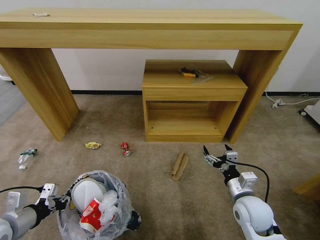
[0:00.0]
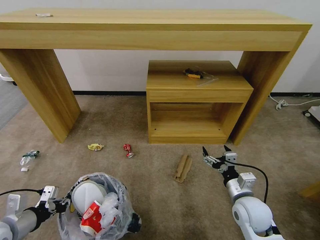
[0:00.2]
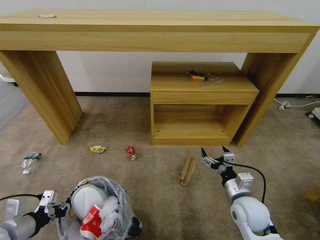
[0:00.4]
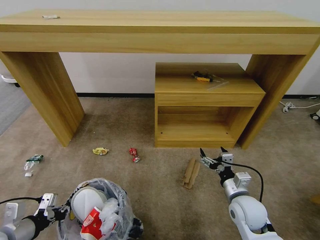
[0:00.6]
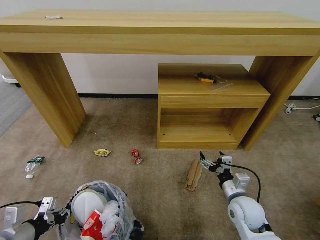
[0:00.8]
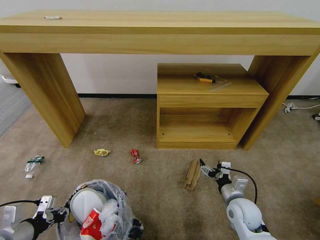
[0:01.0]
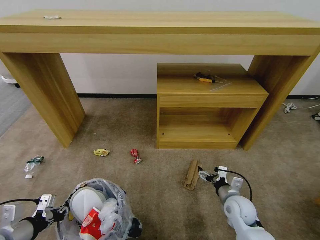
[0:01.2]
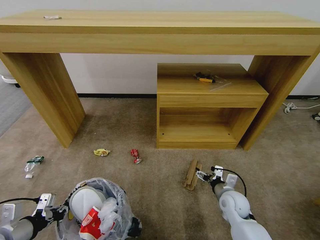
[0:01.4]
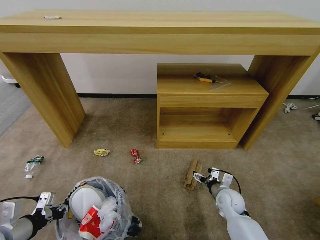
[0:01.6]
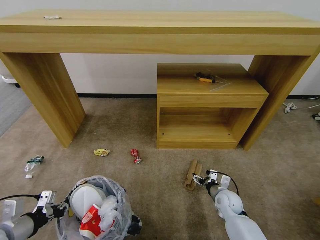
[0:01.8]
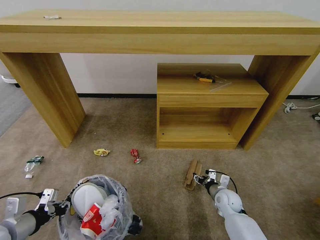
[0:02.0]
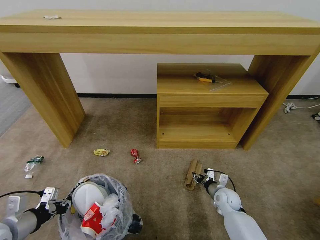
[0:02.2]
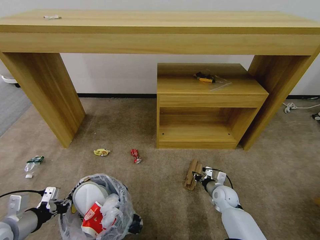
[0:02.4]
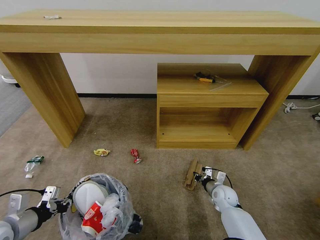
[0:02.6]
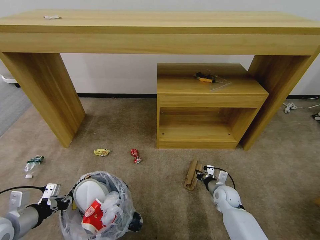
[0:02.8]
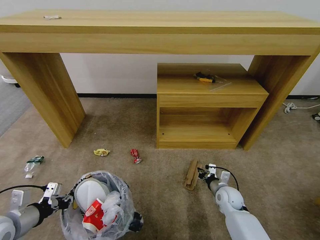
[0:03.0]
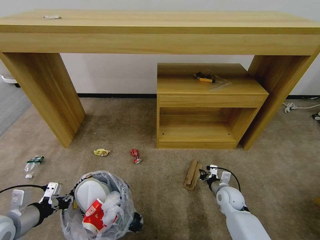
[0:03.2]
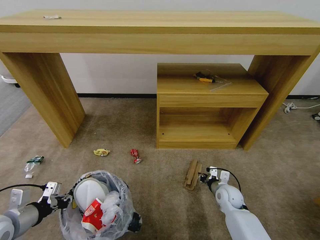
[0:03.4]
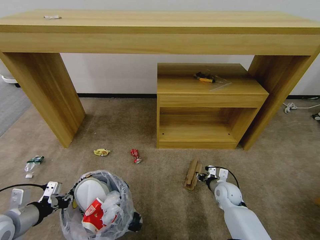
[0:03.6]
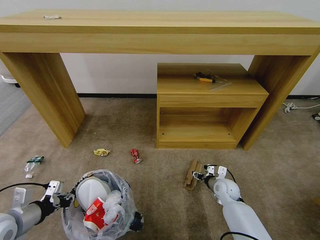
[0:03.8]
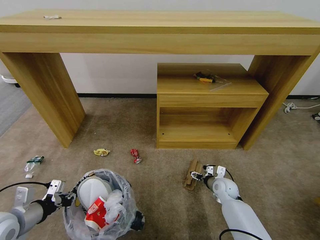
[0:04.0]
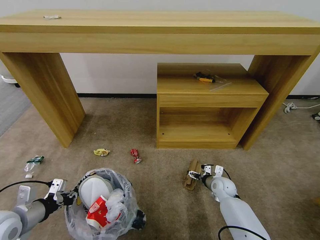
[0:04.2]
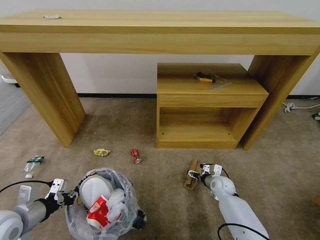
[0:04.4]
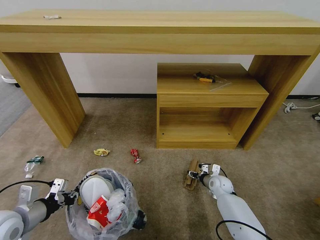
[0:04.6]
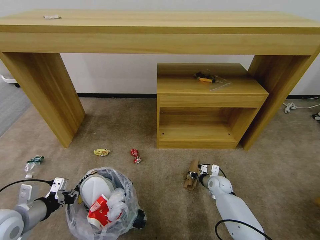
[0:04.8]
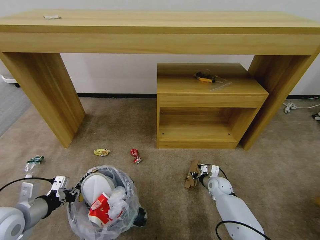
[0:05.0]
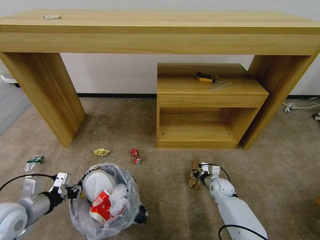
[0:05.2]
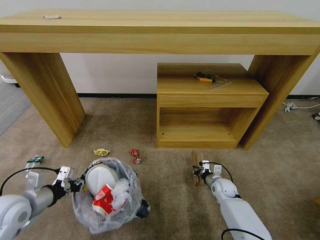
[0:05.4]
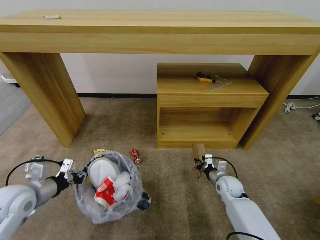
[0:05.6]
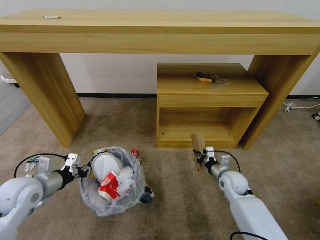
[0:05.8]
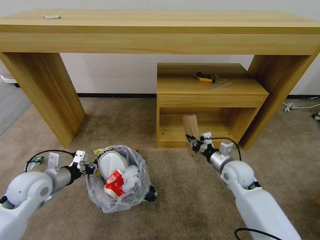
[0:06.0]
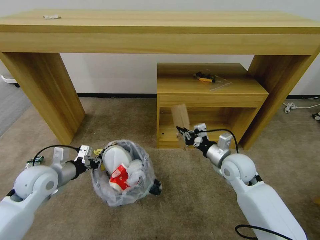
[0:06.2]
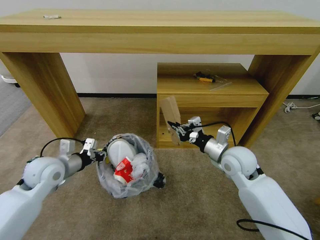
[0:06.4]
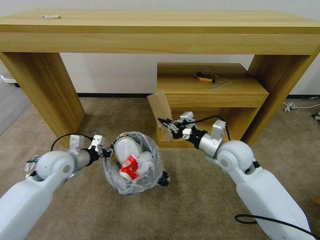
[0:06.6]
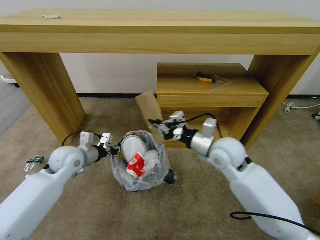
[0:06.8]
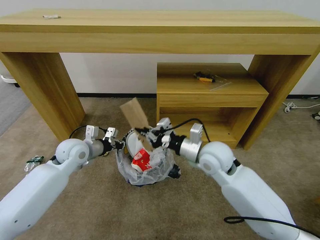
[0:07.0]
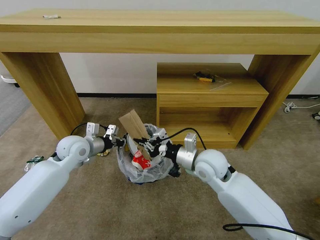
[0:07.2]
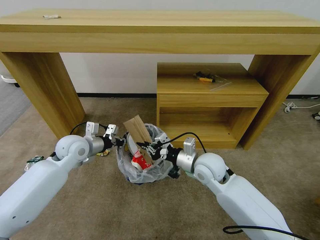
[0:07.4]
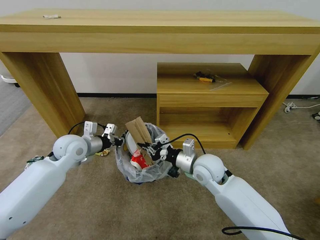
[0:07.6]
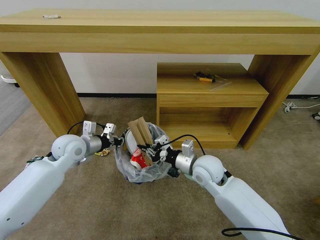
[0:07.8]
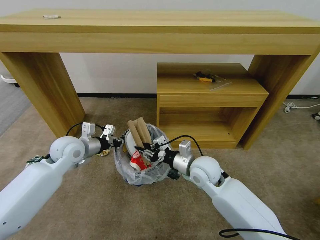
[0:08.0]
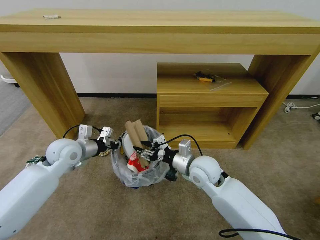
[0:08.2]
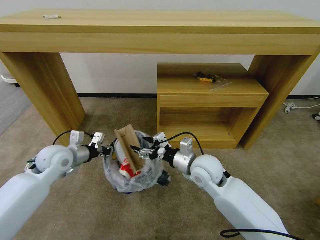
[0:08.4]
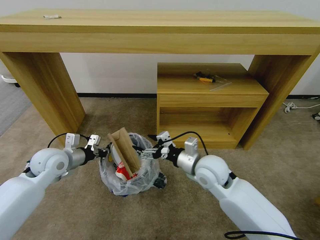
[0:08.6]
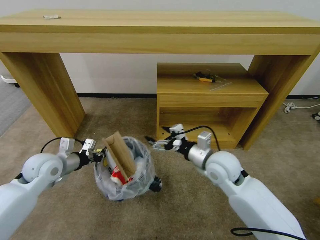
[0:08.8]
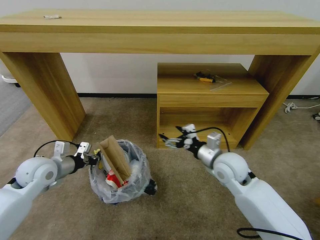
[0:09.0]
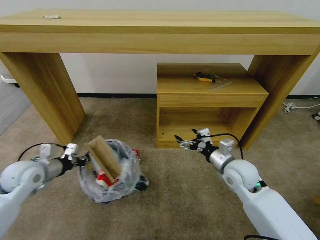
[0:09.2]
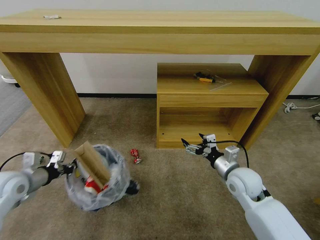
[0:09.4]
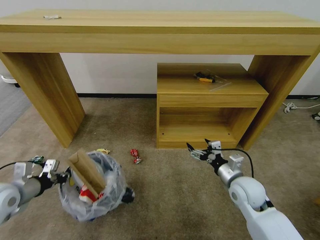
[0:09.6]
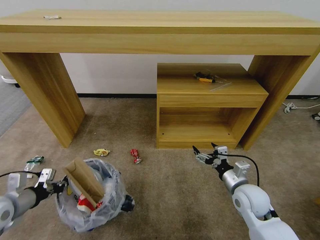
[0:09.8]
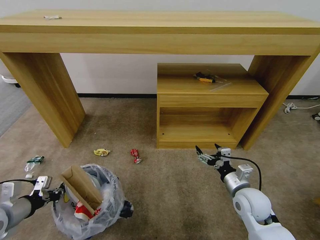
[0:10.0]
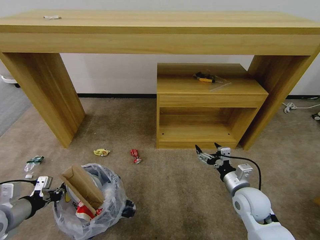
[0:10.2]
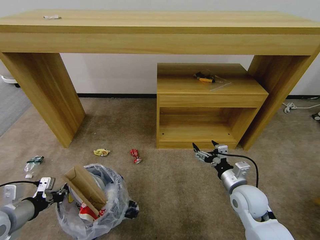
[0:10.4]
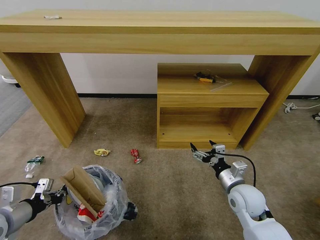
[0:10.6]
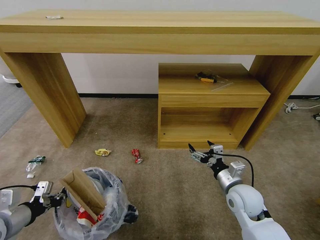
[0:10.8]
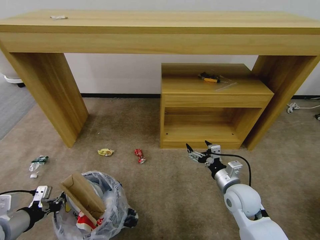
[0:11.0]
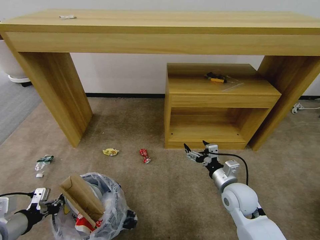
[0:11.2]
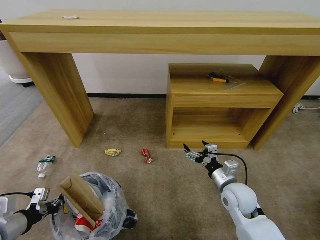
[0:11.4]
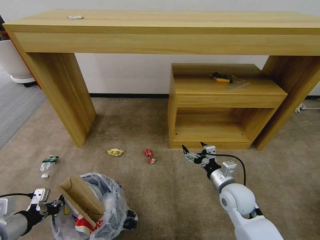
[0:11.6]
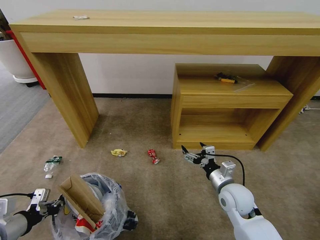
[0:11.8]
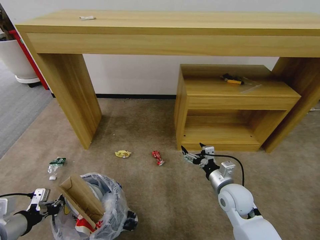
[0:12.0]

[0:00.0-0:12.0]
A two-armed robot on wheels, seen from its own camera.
Task of the whole recording: Pick up the trash bin and place the garbage on the floor into it.
0.0 to 1.6 s: The right gripper shifts approximately 15 cm downward and forward.
1.6 to 3.0 s: The right gripper closes up.
3.0 to 4.4 s: The right gripper is displaced forward by about 5 cm, and opens.
4.4 to 6.0 s: The left gripper goes roughly 10 cm forward; the right gripper is displaced upward by about 15 cm, and closes its fingers.
6.0 to 7.6 s: The left gripper goes about 15 cm forward and to the right. The right gripper heads to the left and upward, covering roughly 15 cm.
7.6 to 9.0 s: The right gripper shifts some 5 cm to the right, and opens. Meanwhile the left gripper shifts roughly 10 cm to the left and backward.
9.0 to 10.4 s: The right gripper shifts about 10 cm downward and backward; the left gripper moves backward, some 15 cm.

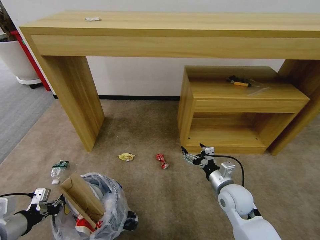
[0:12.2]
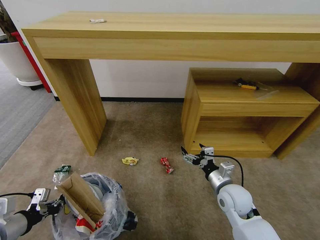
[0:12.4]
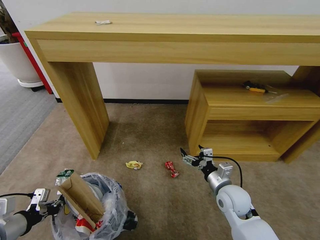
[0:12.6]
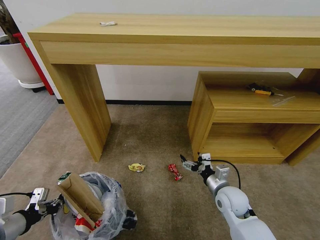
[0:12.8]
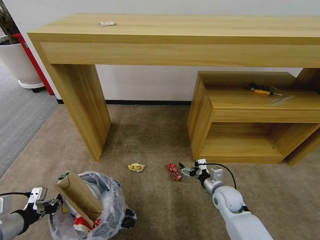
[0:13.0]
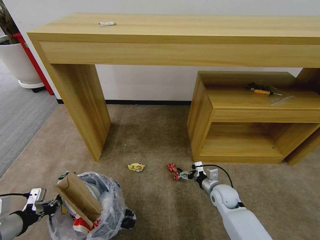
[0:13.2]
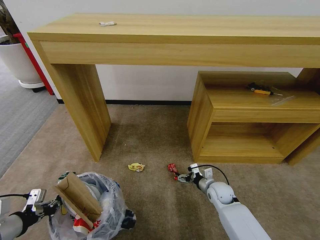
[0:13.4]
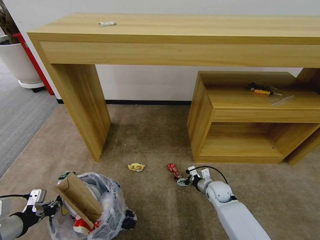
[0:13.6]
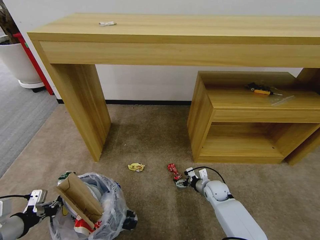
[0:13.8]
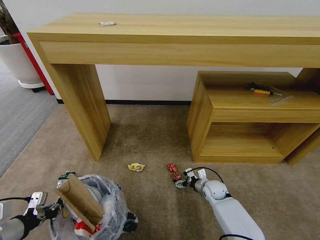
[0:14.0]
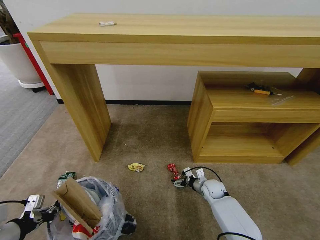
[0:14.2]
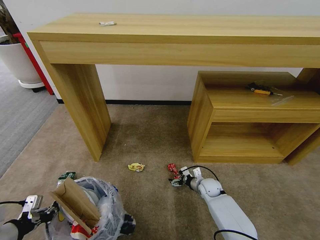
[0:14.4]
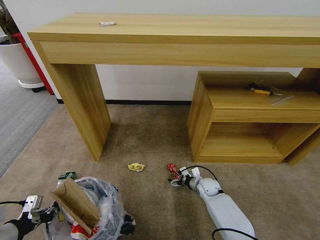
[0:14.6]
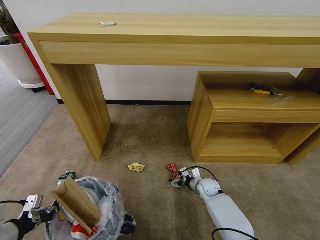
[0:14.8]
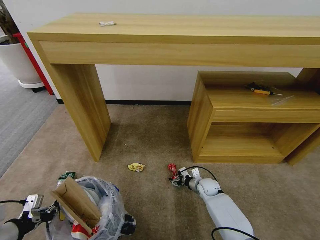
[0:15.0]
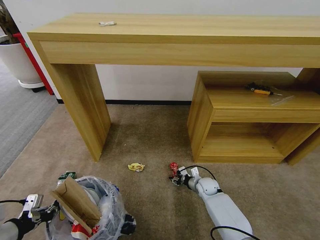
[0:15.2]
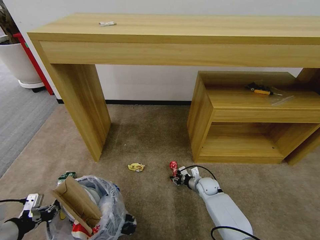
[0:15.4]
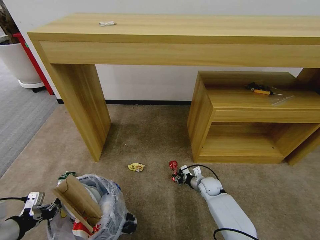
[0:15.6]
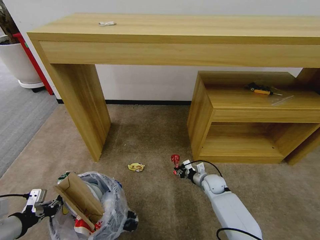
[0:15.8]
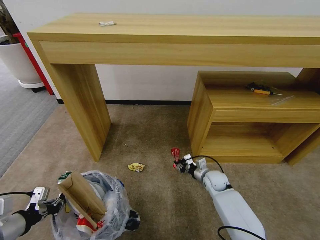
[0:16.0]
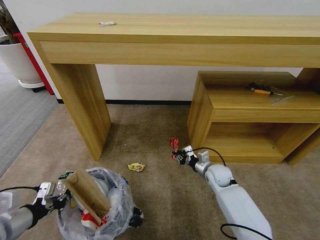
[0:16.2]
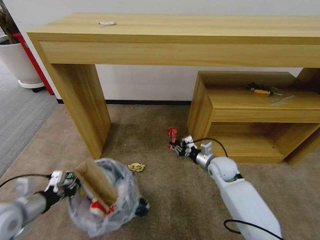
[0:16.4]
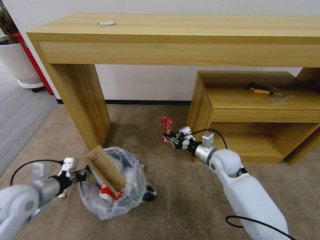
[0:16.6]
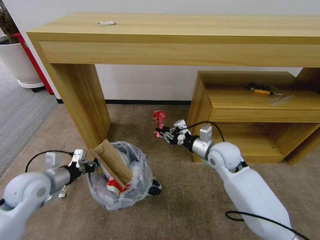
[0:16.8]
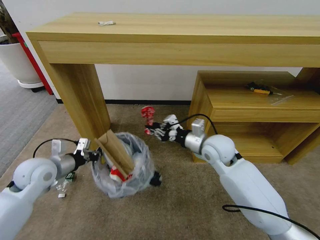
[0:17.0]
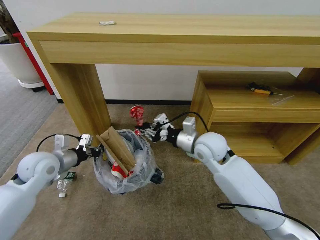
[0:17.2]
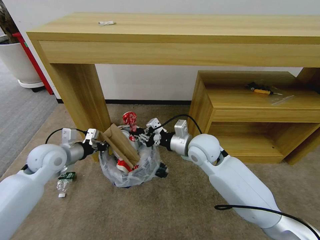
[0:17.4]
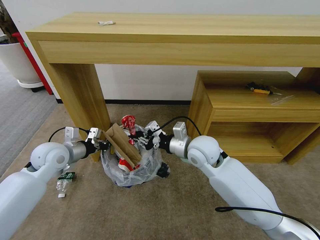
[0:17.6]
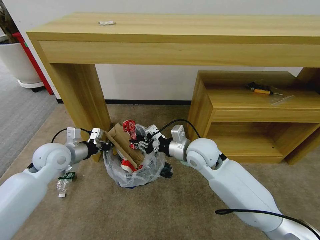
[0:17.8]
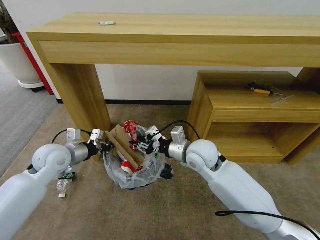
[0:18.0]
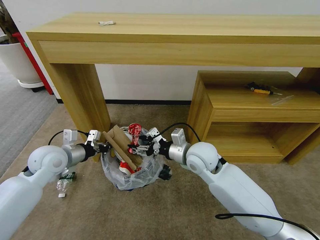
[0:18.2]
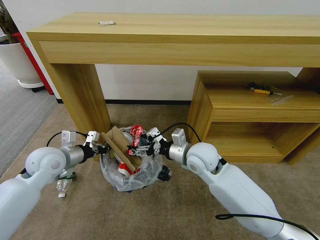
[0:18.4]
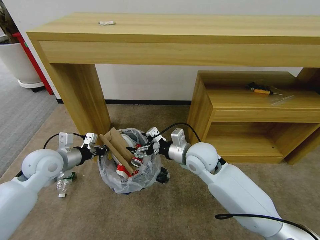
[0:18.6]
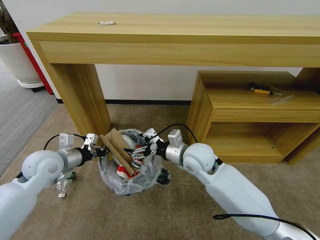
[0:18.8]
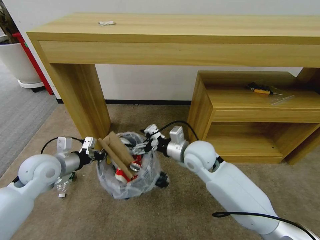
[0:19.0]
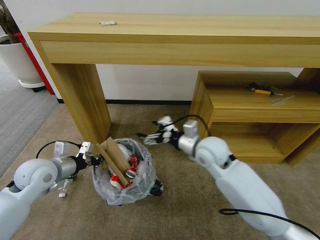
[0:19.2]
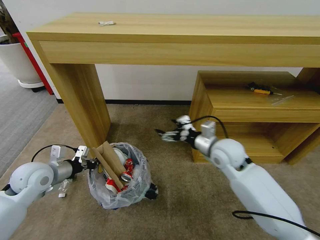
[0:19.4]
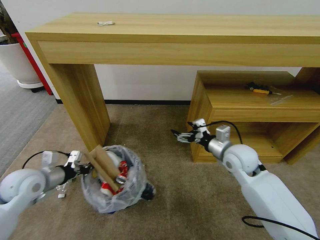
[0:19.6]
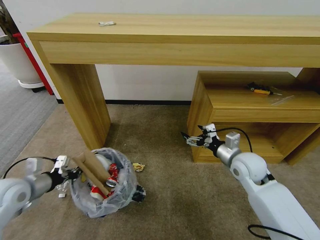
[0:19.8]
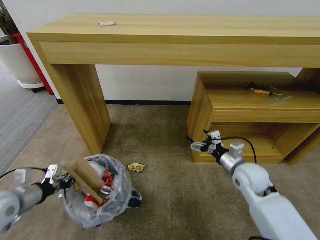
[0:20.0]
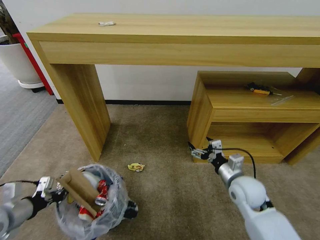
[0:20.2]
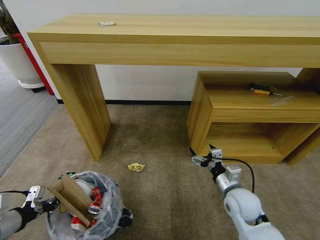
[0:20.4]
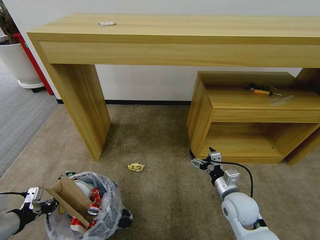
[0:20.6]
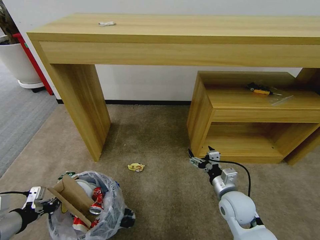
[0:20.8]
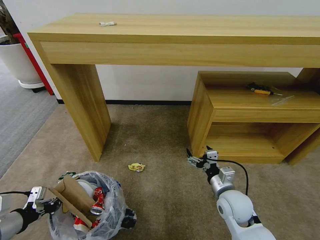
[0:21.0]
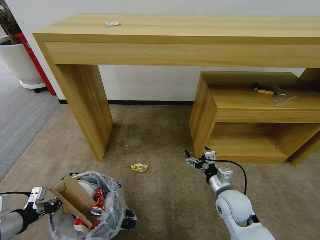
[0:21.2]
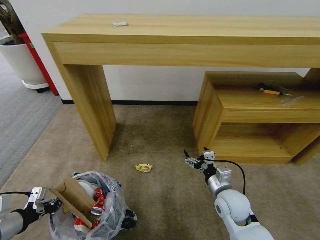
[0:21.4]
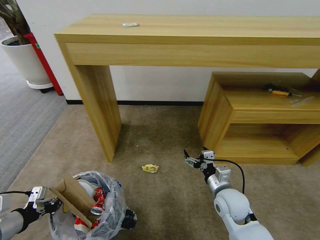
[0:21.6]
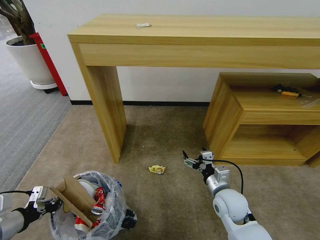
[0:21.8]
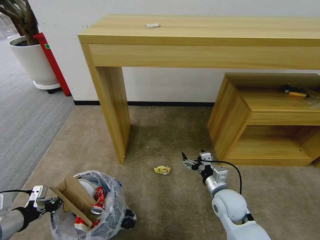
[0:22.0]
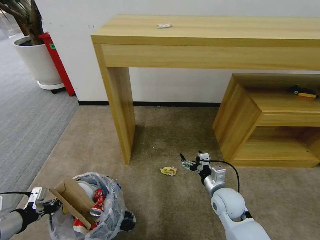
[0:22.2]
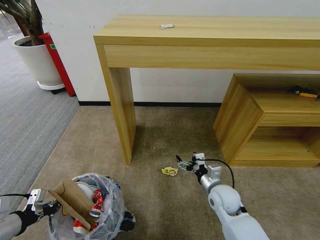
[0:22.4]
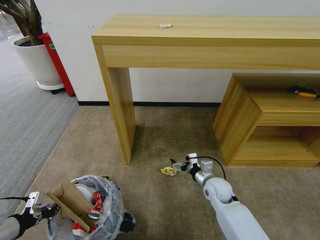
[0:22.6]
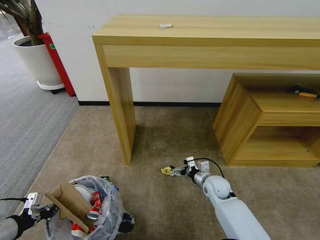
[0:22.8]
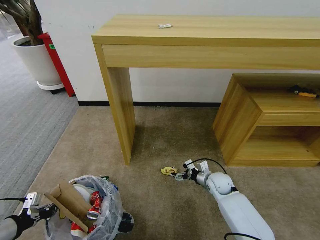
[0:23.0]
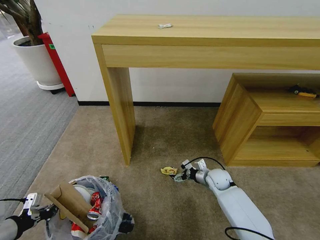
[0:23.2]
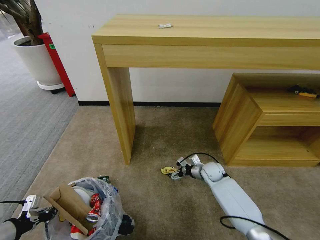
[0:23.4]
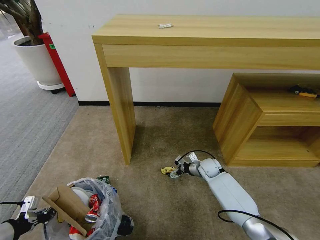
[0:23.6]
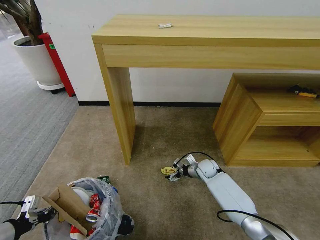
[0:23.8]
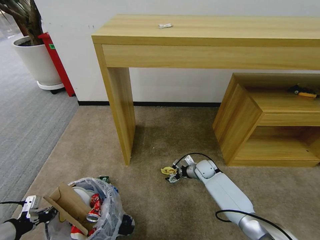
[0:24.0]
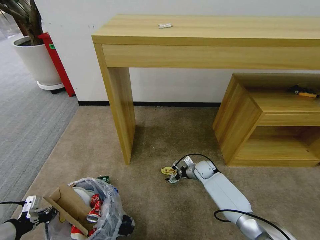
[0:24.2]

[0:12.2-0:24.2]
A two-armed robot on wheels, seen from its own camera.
Task of the whole recording: Pick up the trash bin and place the garbage on the floor into it.
12.2 to 13.8 s: The right gripper is displaced downward and forward by some 15 cm.
13.8 to 15.2 s: The right gripper shifts by about 5 cm, and closes up.
15.2 to 16.6 s: The right gripper moves upward, some 25 cm, while the left gripper goes roughly 15 cm forward and to the right.
16.6 to 18.2 s: The right gripper heads to the left and upward, covering approximately 10 cm, and opens, while the left gripper travels forward by approximately 10 cm.
18.2 to 19.8 s: The left gripper is displaced backward and to the left by approximately 10 cm. The right gripper is displaced to the right by approximately 15 cm, and opens.
19.8 to 21.2 s: The right gripper shifts roughly 15 cm backward, downward and to the left. The left gripper travels backward by some 10 cm.
21.2 to 22.6 s: The right gripper heads forward and downward, covering some 10 cm.
22.6 to 24.2 s: The right gripper heads forward and downward, covering approximately 15 cm.
